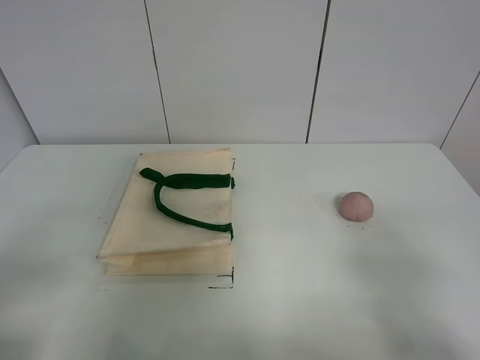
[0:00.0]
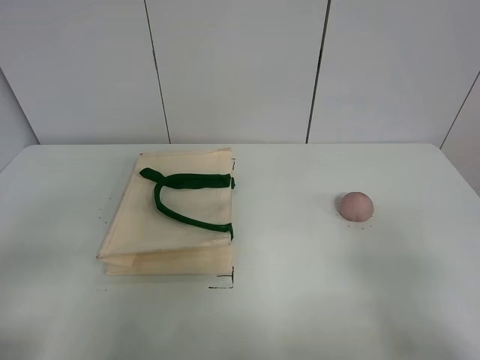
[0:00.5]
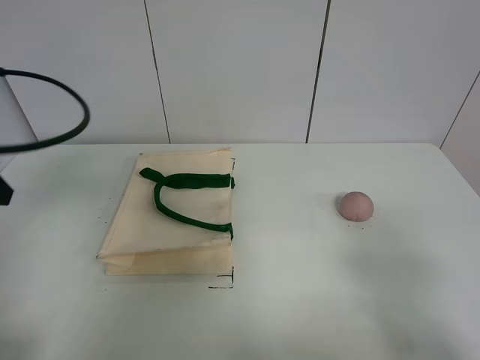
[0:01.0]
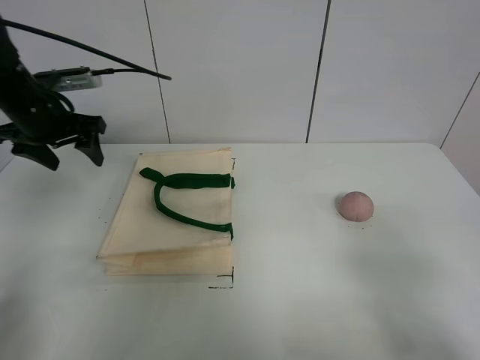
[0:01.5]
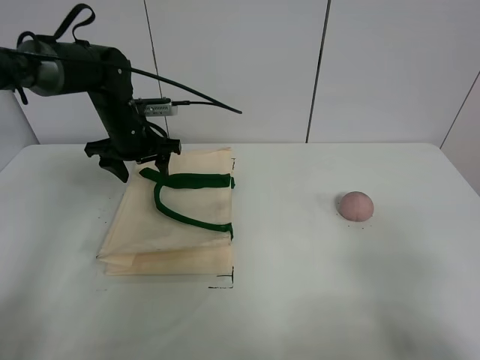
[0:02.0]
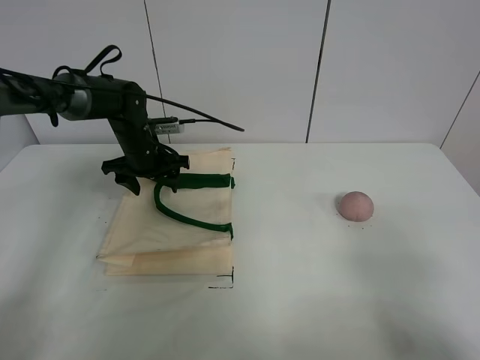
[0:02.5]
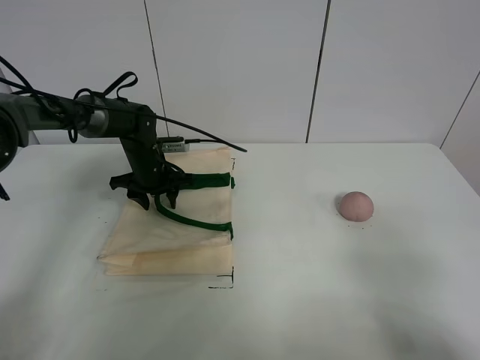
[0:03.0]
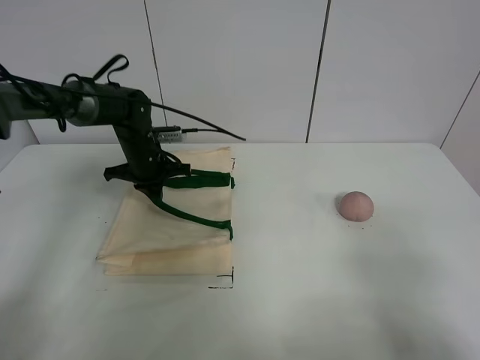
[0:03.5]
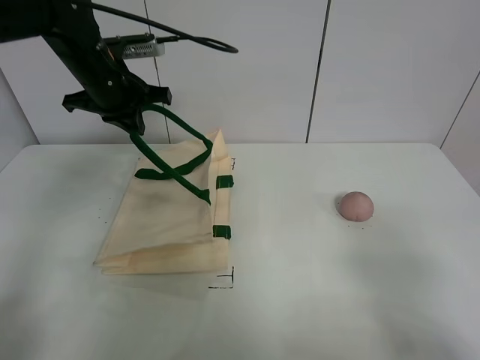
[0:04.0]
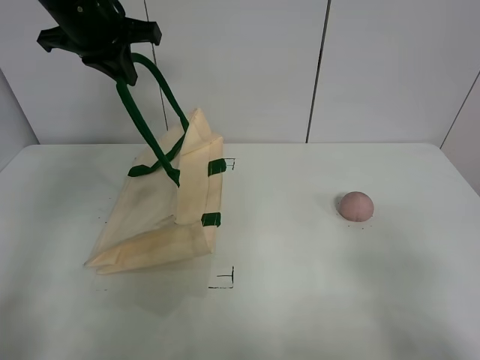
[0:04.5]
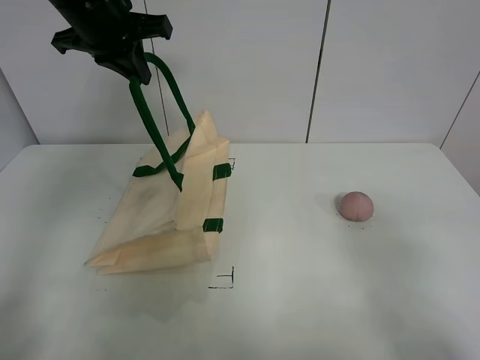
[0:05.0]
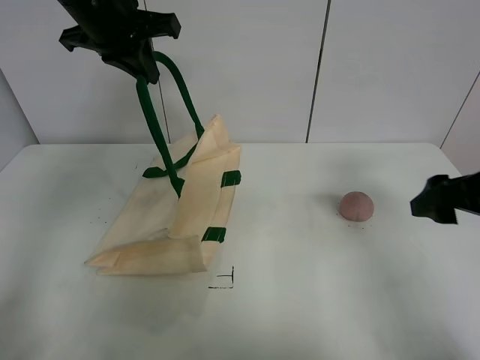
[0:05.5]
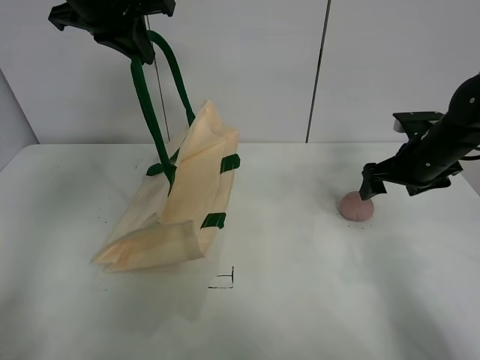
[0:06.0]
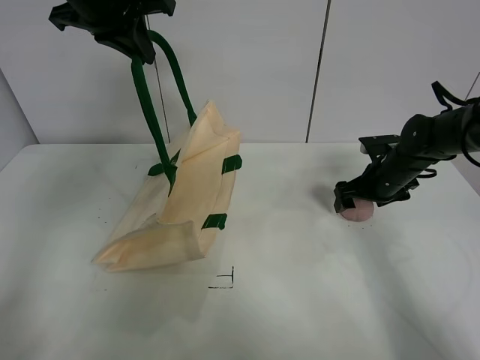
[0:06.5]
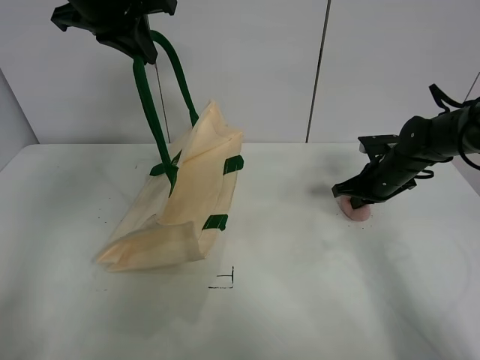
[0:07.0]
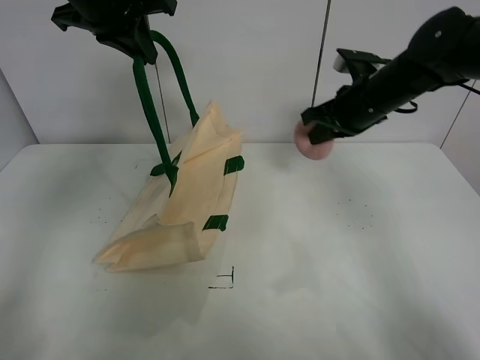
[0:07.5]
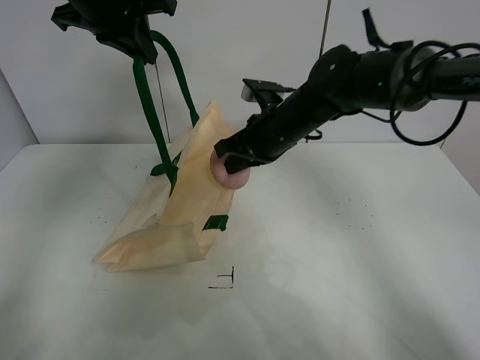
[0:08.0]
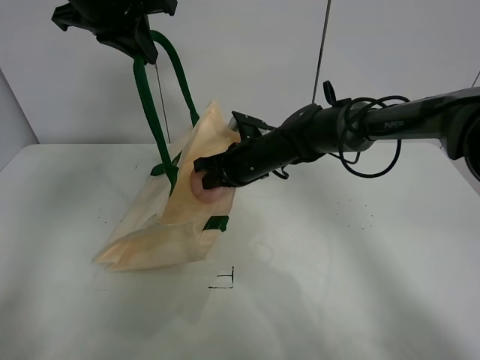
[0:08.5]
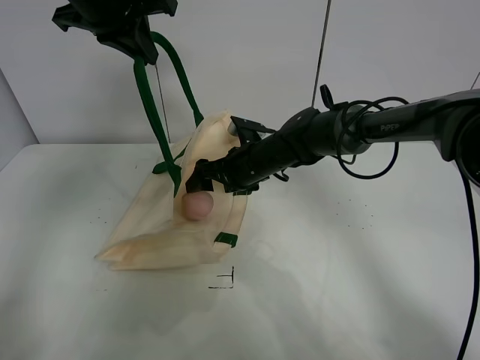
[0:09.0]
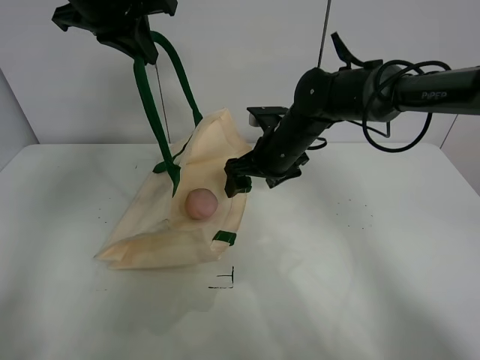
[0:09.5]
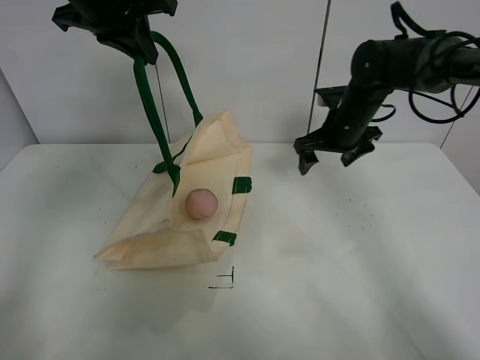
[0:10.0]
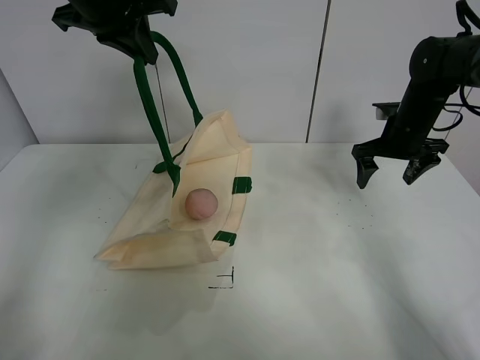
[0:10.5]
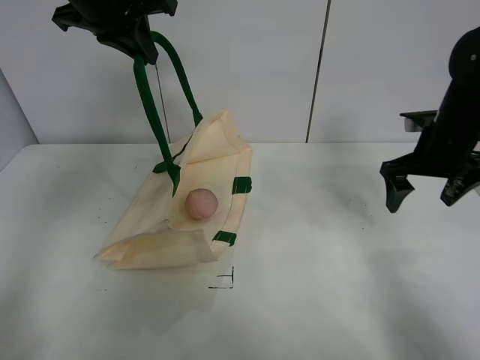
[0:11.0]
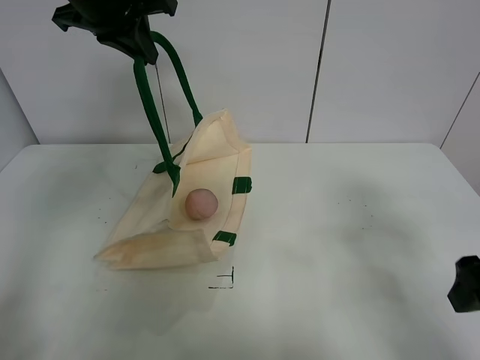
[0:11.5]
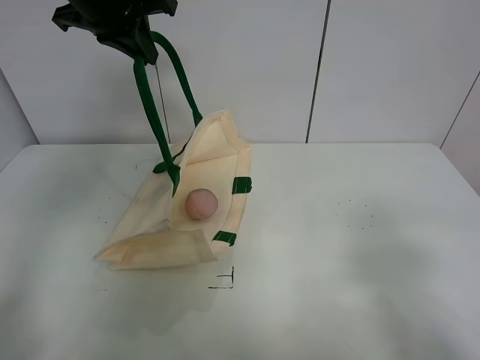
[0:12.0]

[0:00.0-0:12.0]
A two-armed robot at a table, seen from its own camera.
Task of the whole recording: open the white linen bag and put the peach in the bag.
Step, 0:00.0 to 0:04.0: Lift the handbag with left gripper.
Step, 0:04.5 to 0:07.0: Grasp the peach with right gripper.
Step, 0:07.5 to 0:09.0: Place the peach in the handbag with right gripper.
0:00.0 to 0:02.0: The left gripper heads forward, covering some 40 cm.
0:02.0 to 0:04.0: The left gripper travels upward by some 10 cm, and closes its fingers.
0:04.0 to 0:06.0: The left gripper shifts some 10 cm upward. Meanwhile the right gripper shifts some 35 cm forward.
0:06.0 to 0:08.0: The right gripper moves to the left, approximately 20 cm, and closes.
0:08.0 to 0:10.0: The right gripper is displaced to the right and forward by about 15 cm, and opens its fingers.
0:10.0 to 0:12.0: The right gripper travels backward by approximately 40 cm.

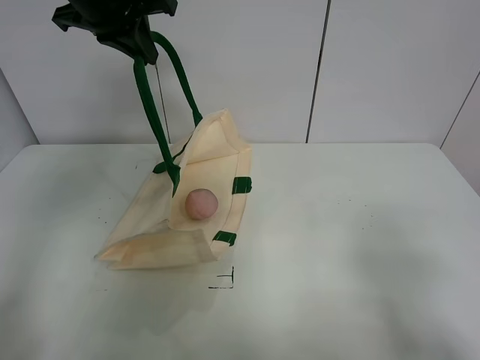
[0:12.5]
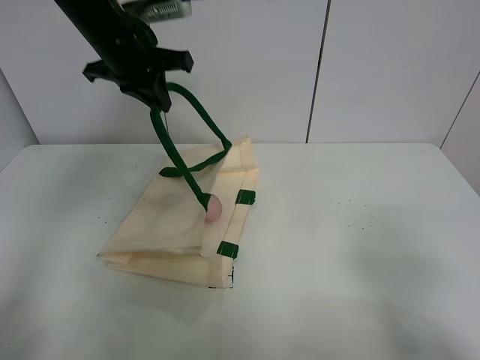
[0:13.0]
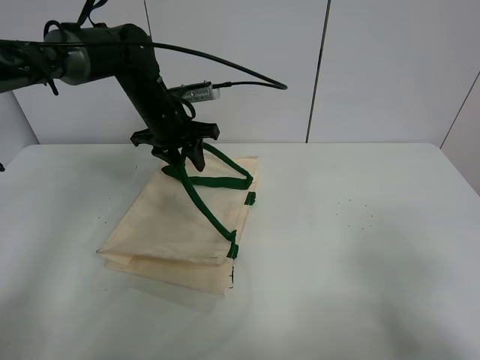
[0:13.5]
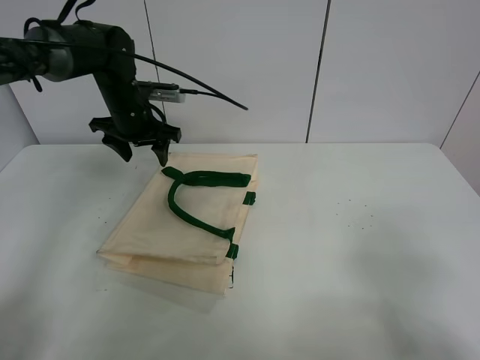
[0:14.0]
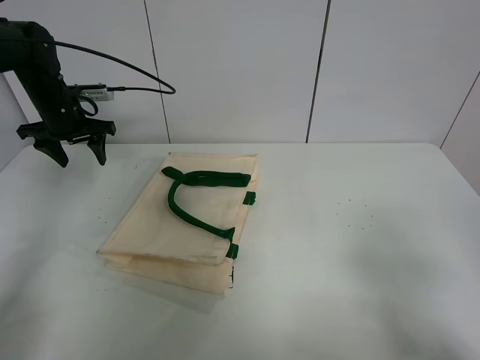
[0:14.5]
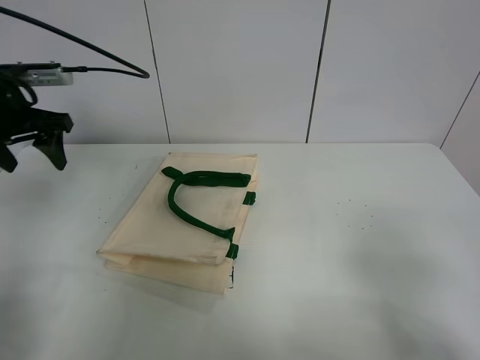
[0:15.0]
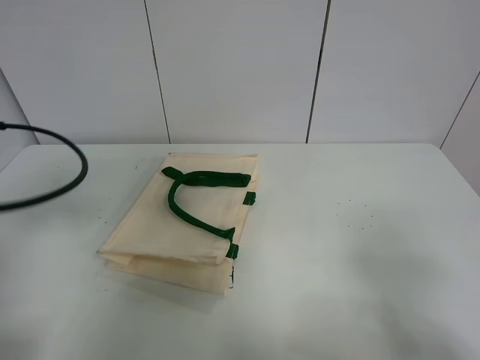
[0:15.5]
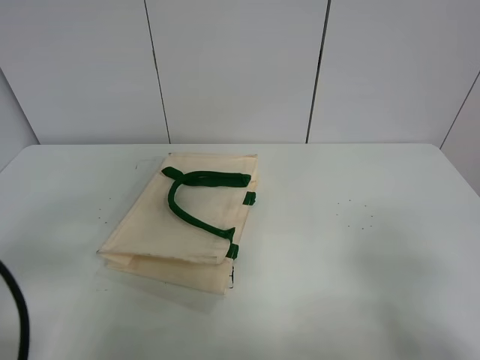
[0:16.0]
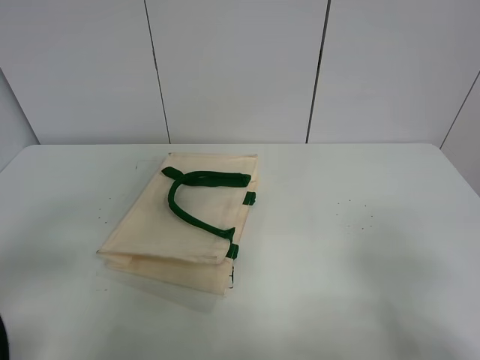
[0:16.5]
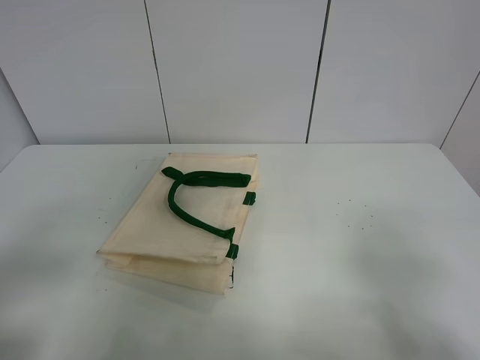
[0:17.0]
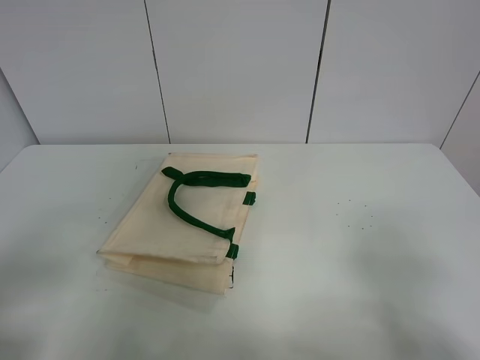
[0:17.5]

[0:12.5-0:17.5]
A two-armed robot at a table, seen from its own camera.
Task of the whole recording: open the white linen bag and put the peach in the bag.
0:12.5 to 0:15.0: The left gripper heads to the left and downward, covering approximately 20 cm, and opens.
0:15.0 to 0:17.5: The left gripper shifts about 30 cm backward.
